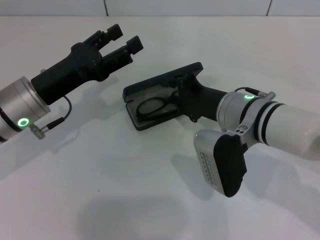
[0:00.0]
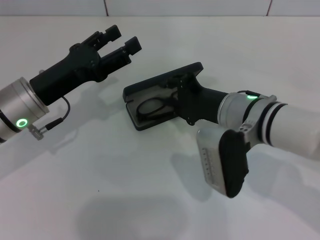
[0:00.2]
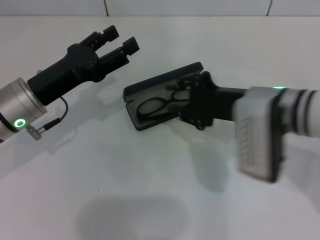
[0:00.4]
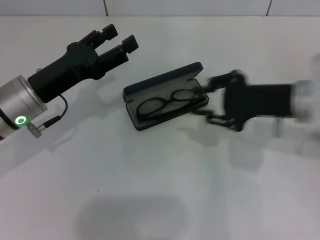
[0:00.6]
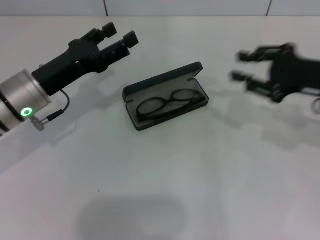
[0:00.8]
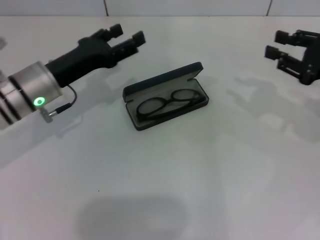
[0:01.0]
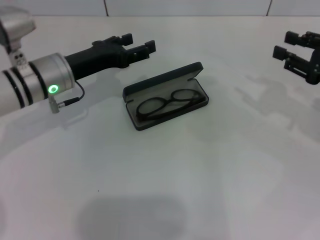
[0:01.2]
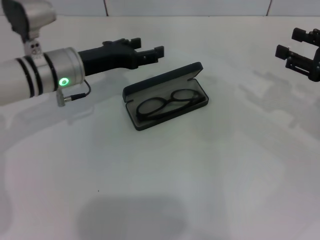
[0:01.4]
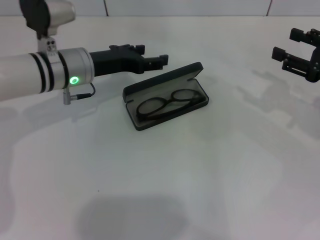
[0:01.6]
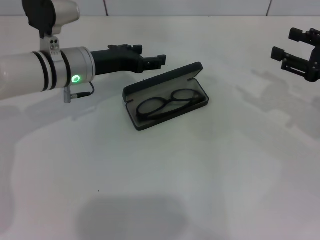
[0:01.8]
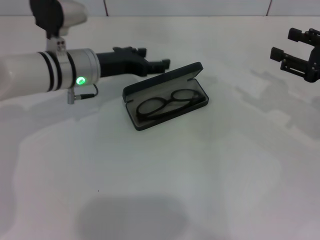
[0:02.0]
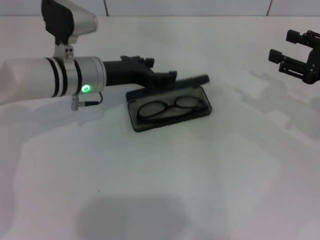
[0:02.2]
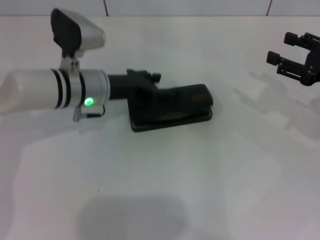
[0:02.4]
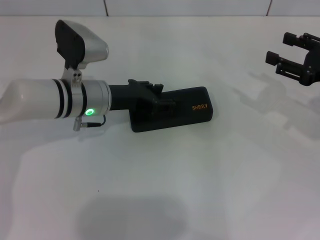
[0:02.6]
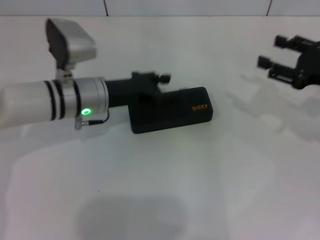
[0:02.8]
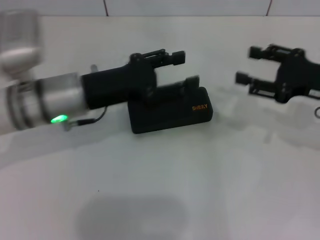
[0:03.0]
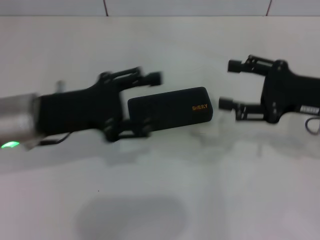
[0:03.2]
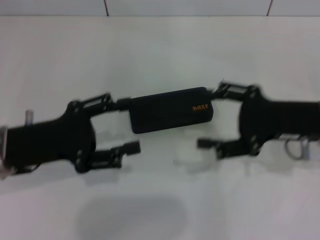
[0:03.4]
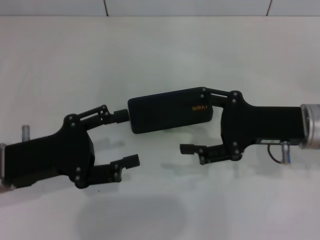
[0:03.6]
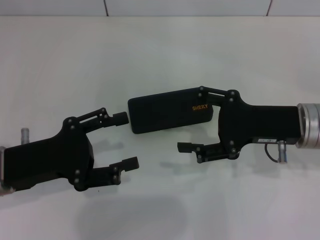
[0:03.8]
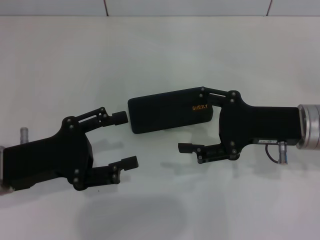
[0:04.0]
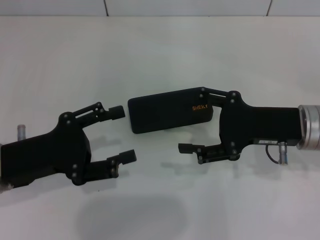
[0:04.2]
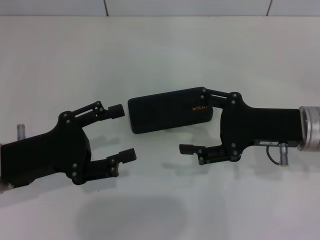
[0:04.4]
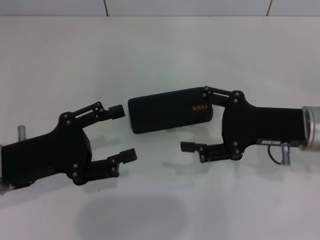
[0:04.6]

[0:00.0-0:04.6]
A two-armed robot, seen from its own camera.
Step, 0:00.4 to 0:02.4: Close the glasses case with your left hand.
0:00.0 to 0:01.6: The left gripper goes about 10 cm forward. Meanwhile the right gripper is displaced to the right by roughly 20 cm.
0:01.6 to 0:03.0: The left gripper goes roughly 10 cm backward.
0:03.0 to 0:04.6: The left gripper goes approximately 10 cm backward and to the left. Meanwhile the right gripper travels to the left by roughly 5 cm.
